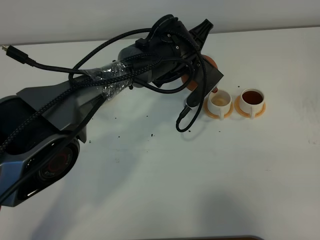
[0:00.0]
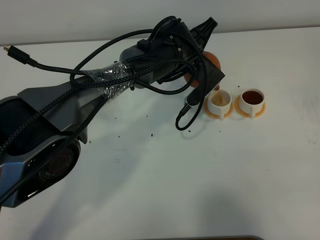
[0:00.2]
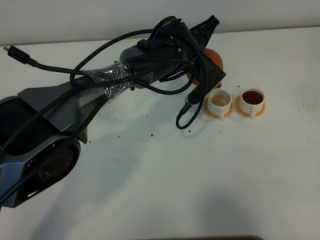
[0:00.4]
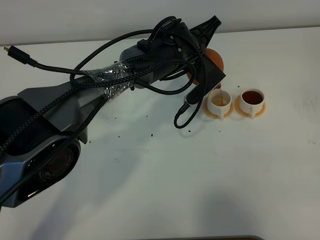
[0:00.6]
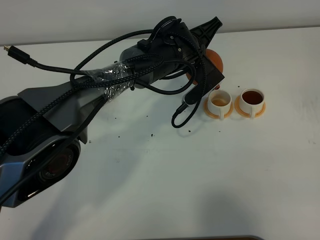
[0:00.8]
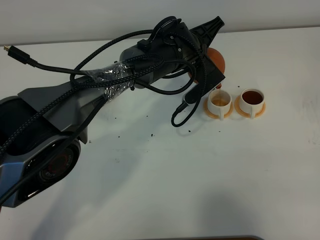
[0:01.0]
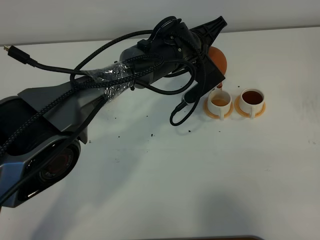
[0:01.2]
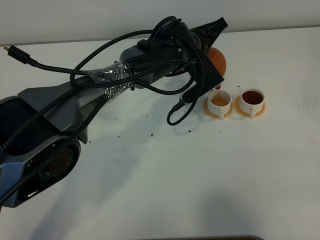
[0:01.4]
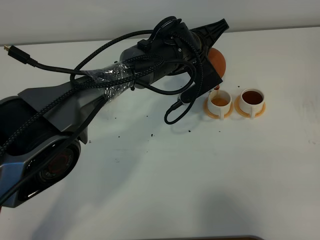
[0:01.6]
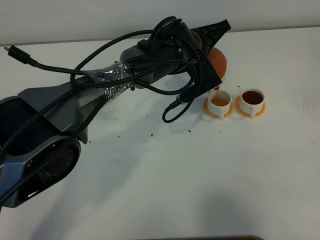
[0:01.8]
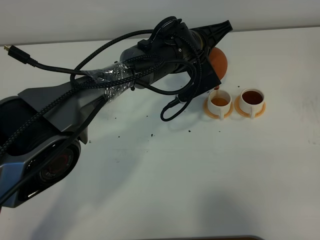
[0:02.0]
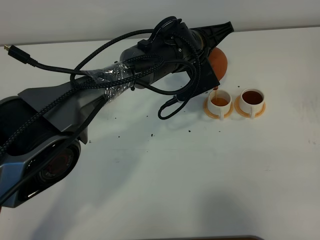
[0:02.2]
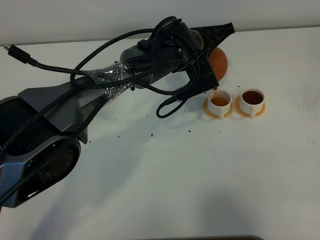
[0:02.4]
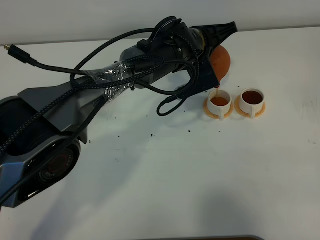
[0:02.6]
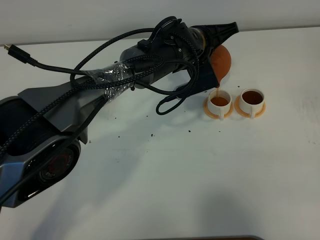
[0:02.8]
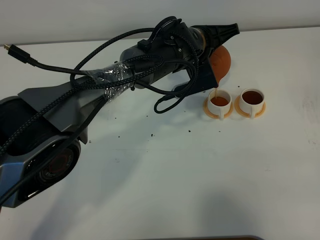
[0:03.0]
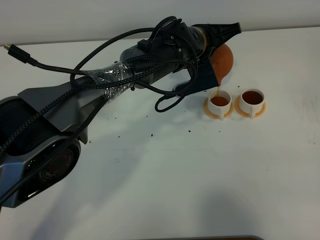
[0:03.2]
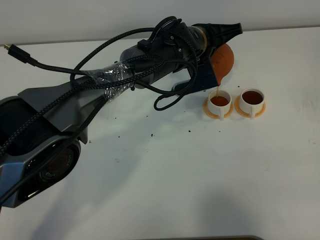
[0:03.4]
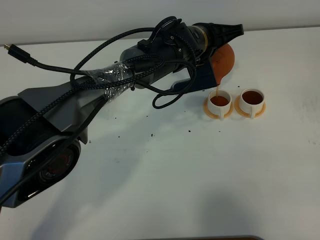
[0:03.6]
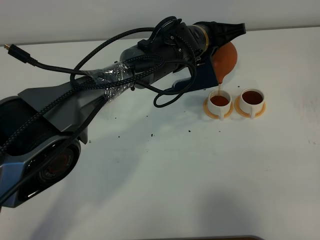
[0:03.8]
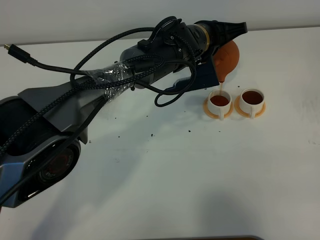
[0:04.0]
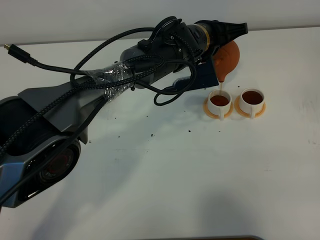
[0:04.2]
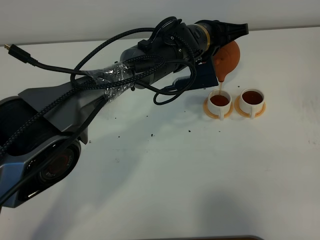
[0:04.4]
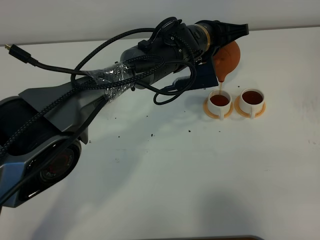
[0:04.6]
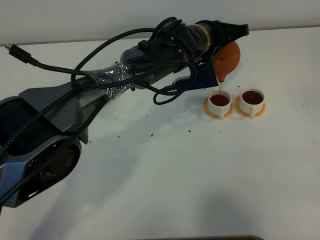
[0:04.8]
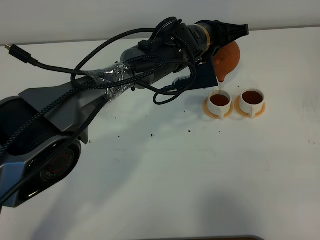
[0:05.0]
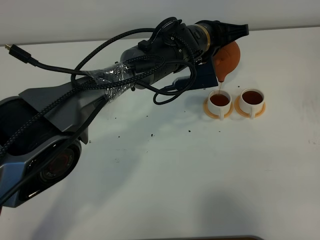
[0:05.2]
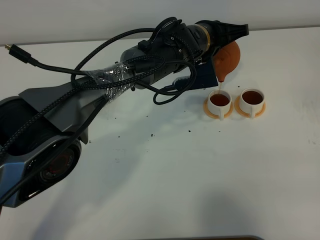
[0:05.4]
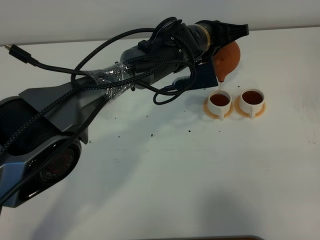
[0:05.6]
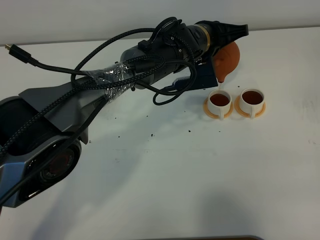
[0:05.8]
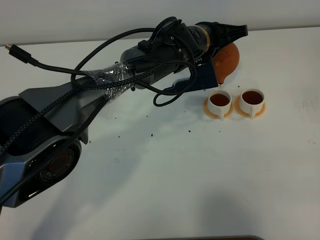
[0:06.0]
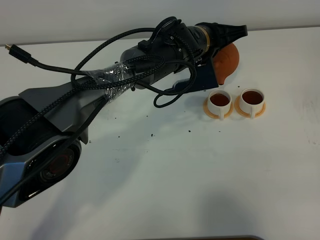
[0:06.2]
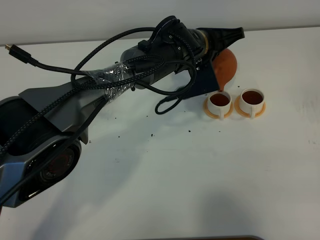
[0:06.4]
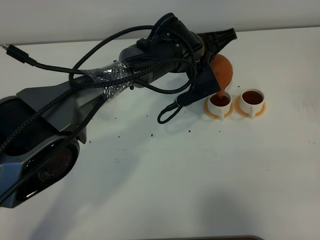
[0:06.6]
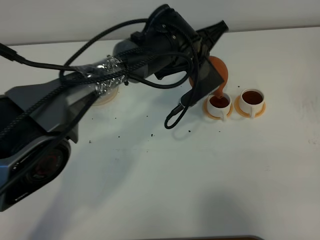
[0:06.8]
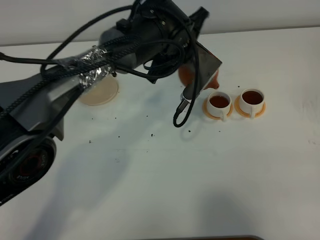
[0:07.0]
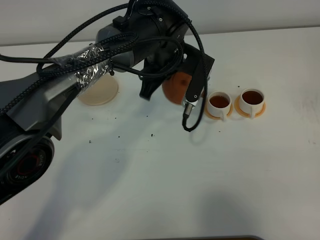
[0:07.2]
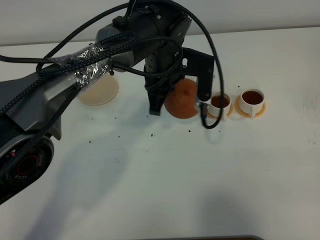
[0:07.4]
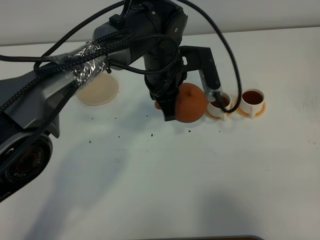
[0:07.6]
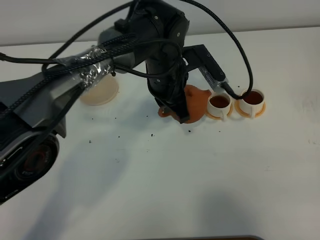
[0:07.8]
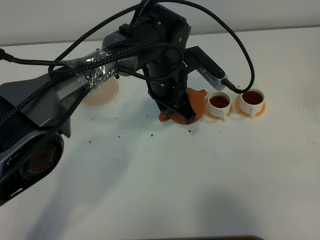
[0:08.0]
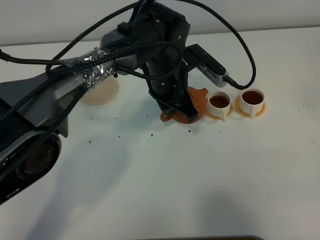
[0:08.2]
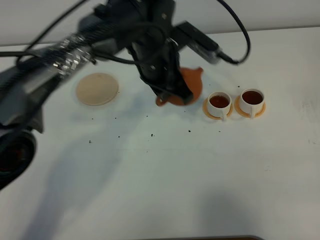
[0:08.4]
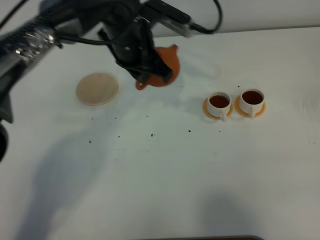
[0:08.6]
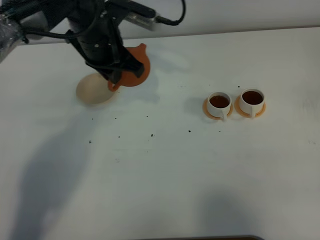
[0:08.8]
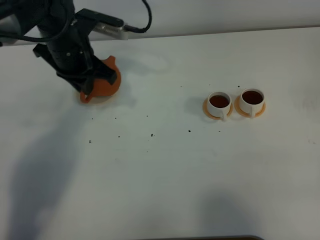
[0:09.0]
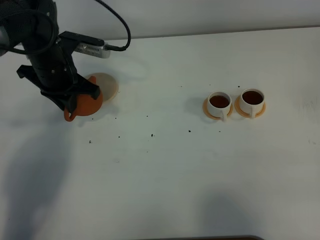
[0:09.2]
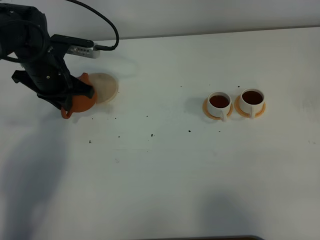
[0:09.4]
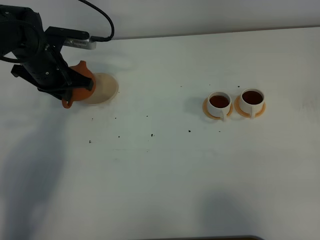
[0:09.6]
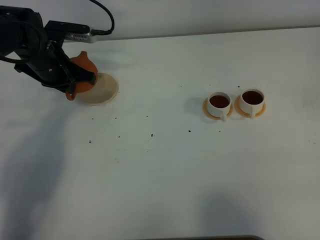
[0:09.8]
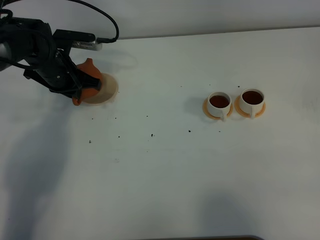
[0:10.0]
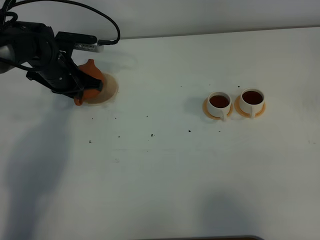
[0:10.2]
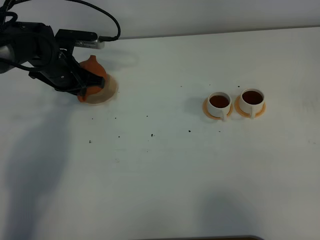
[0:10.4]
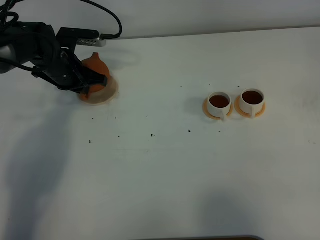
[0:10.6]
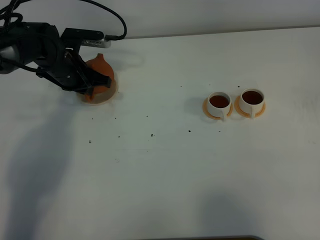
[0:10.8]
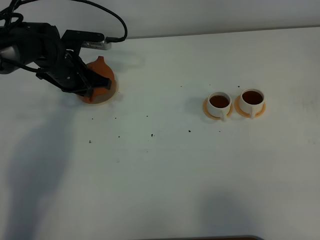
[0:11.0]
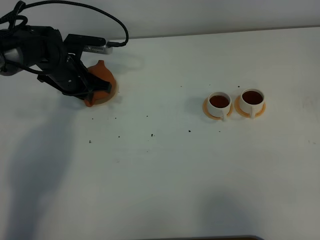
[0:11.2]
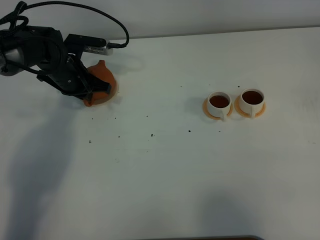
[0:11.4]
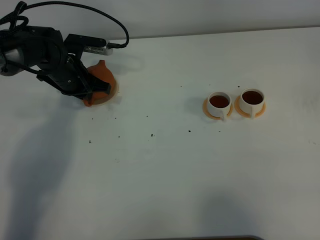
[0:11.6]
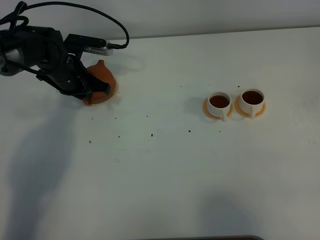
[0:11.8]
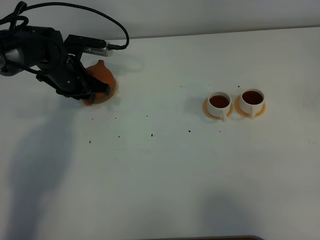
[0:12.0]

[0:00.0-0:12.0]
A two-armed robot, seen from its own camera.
Task of the whole recording: grasp the brown teapot and pour the tea into the two white teacups one by one, put the brown teapot back in its original place.
Step, 0:00.0 to 0:06.4: Pour tea into the teacup with the left gripper.
0:00.0 to 0:01.6: The grippers stay close to where they were, moving slightly.
0:01.6 to 0:03.0: The grippers move only a little.
0:03.0 to 0:04.4: The grippers make only small movements.
0:04.4 to 0:06.0: Both grippers stay about where they are.
0:06.0 to 0:07.6: The left gripper travels to the left by about 5 cm.
0:07.6 to 0:09.0: The left gripper is displaced to the left by about 15 cm.
0:09.0 to 0:10.4: The left gripper is displaced downward by about 10 cm.
0:10.4 to 0:12.0: The left gripper opens.

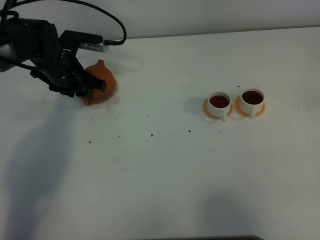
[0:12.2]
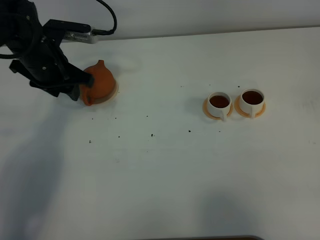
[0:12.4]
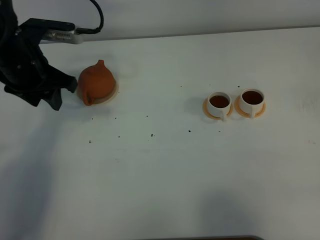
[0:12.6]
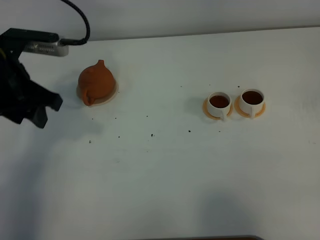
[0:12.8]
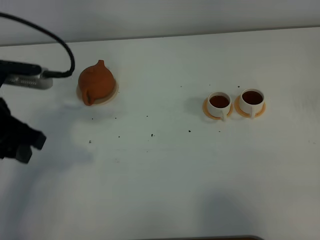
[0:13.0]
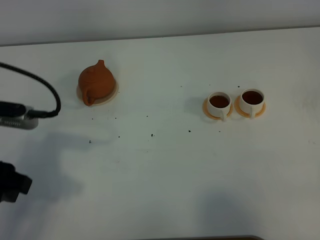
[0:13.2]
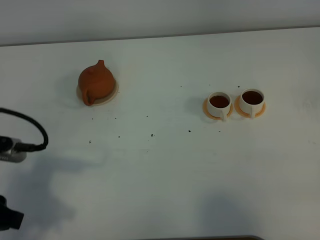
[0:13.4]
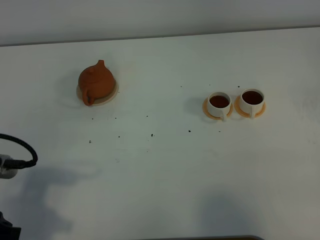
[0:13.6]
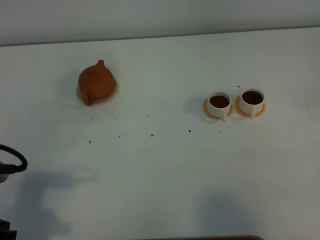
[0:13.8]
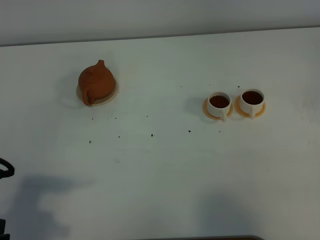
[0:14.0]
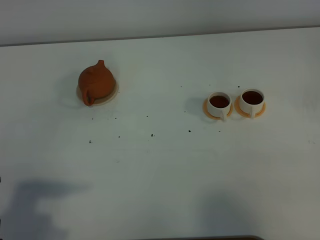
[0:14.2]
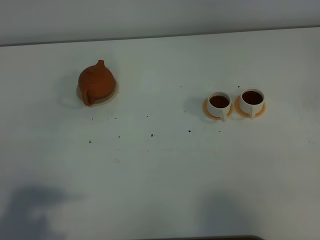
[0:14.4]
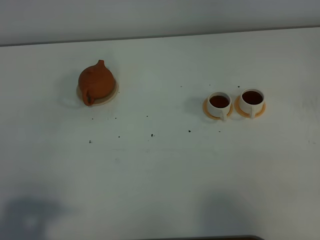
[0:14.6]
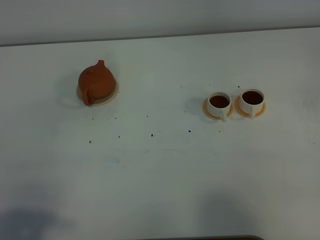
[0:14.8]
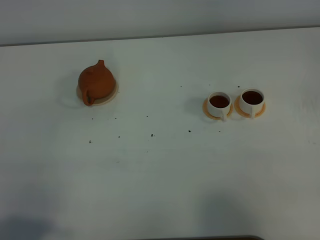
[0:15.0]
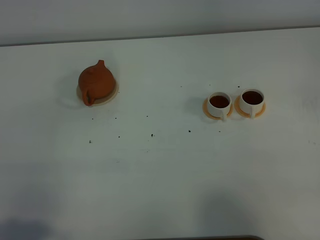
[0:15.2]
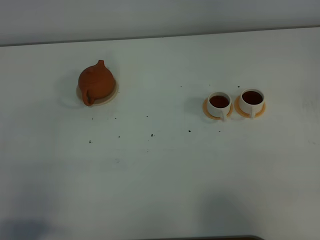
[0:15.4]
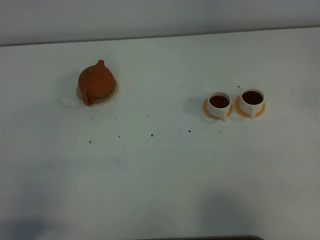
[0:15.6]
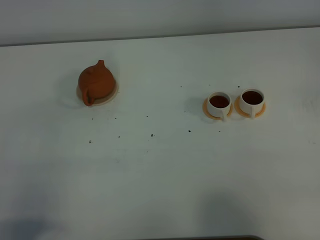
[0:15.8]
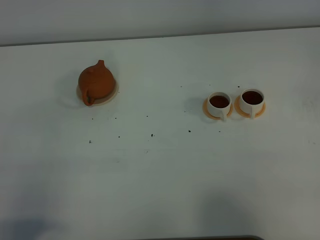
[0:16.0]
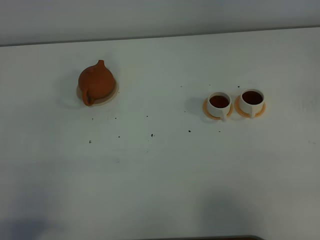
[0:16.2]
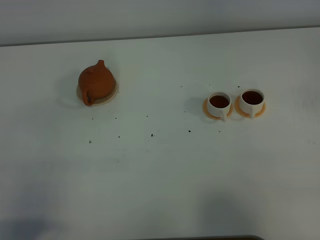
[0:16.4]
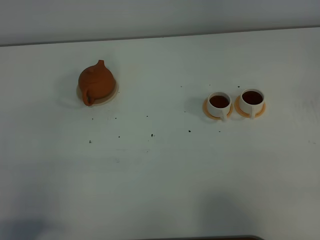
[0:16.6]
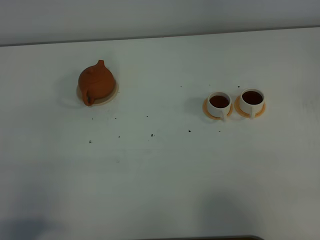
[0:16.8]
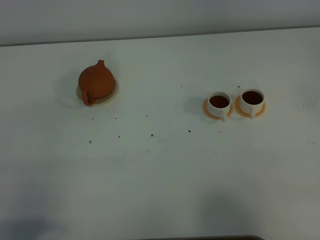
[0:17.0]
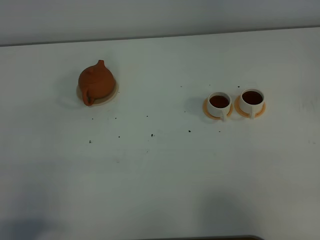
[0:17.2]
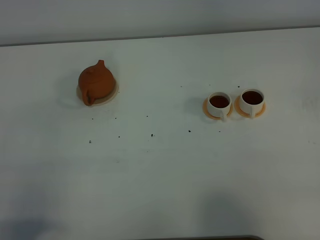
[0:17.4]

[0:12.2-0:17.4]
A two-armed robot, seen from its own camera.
Task of the whole recording: grasp the brown teapot and pour the tea into the two white teacups one by one, put the brown teapot back in its original place.
0:12.2 to 0:14.0: The left gripper heads backward, covering about 35 cm.
0:14.0 to 0:15.6: The left gripper moves backward, roughly 10 cm.
0:15.6 to 0:17.4: Both grippers stay about where they are.
